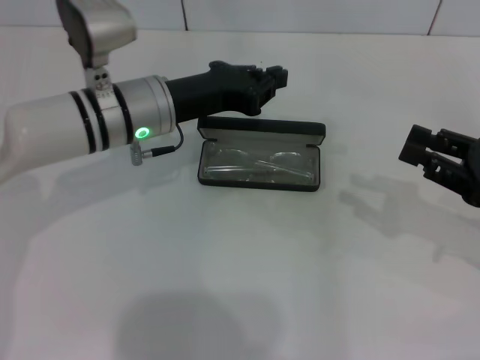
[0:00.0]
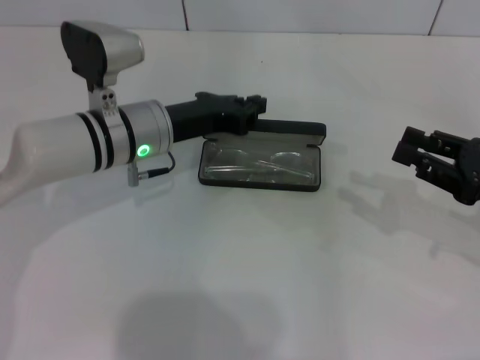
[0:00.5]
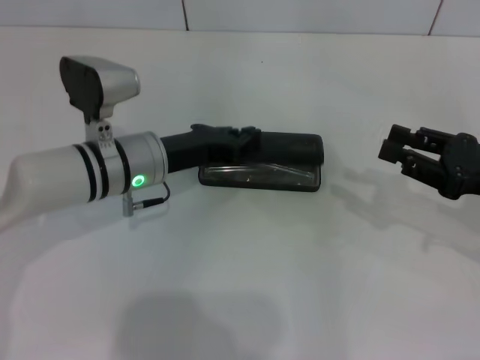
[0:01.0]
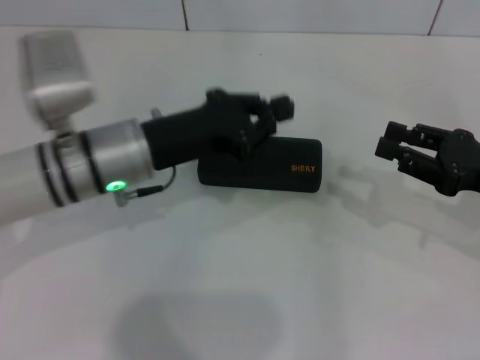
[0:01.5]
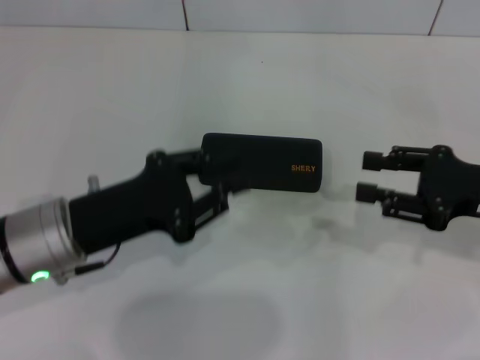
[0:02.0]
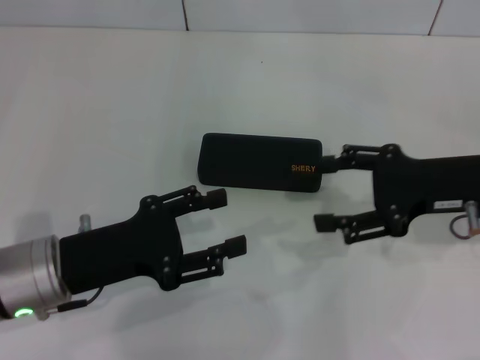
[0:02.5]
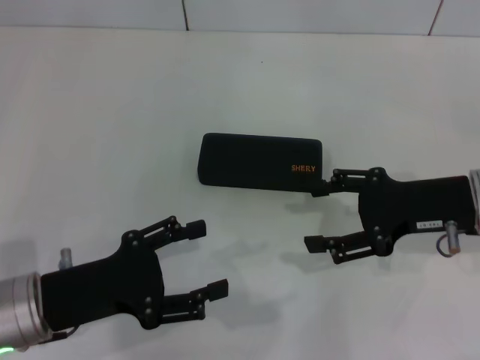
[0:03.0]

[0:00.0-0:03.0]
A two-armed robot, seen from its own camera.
0:00.0 to 0:01.5: The left gripper travels backward by some 5 cm.
0:01.5 to 0:03.0: The right gripper shifts about 5 cm to the left, and opens up. Meanwhile the left gripper shifts roughly 15 cm backward and to the left, and opens up.
